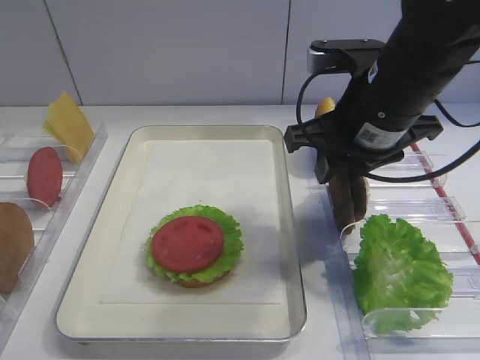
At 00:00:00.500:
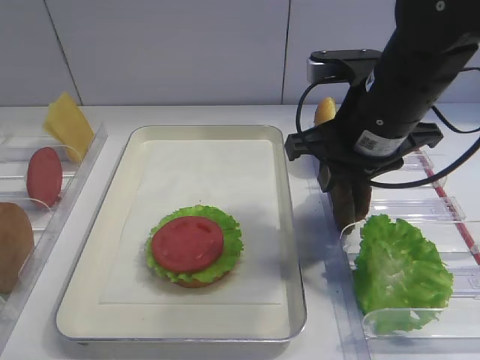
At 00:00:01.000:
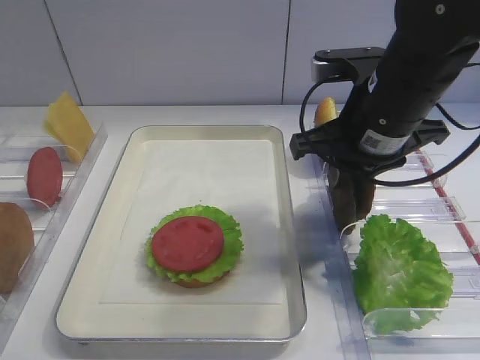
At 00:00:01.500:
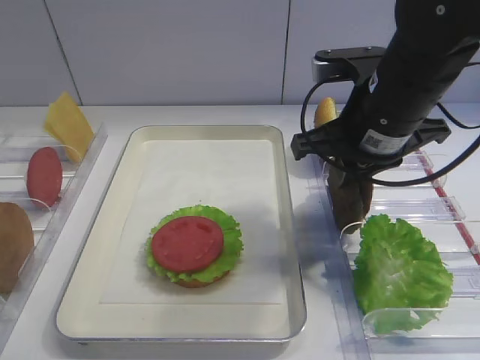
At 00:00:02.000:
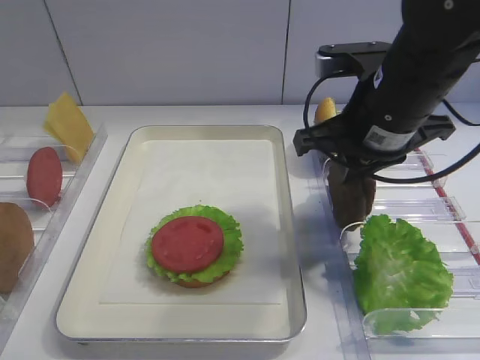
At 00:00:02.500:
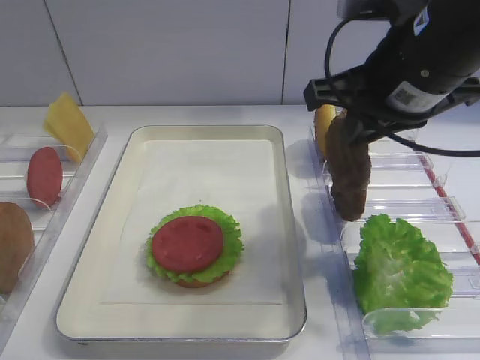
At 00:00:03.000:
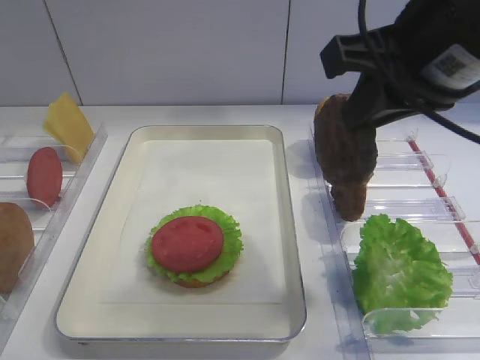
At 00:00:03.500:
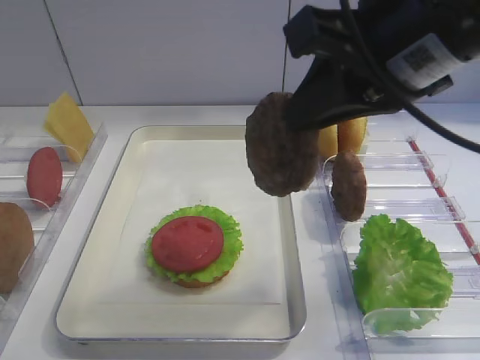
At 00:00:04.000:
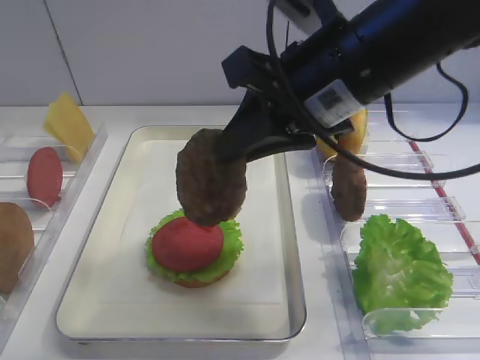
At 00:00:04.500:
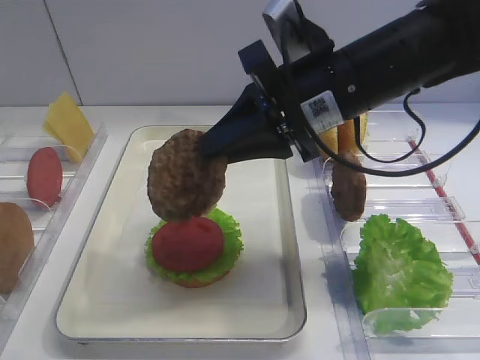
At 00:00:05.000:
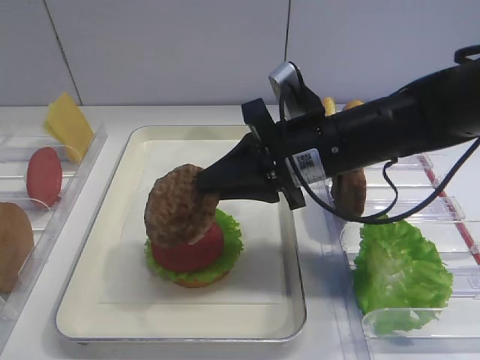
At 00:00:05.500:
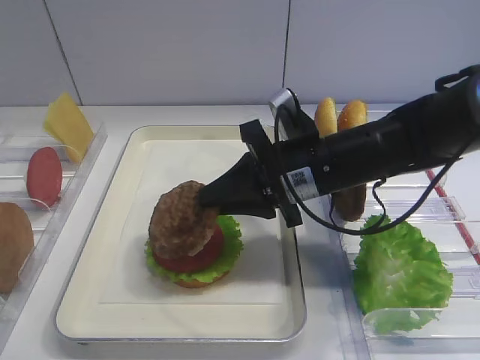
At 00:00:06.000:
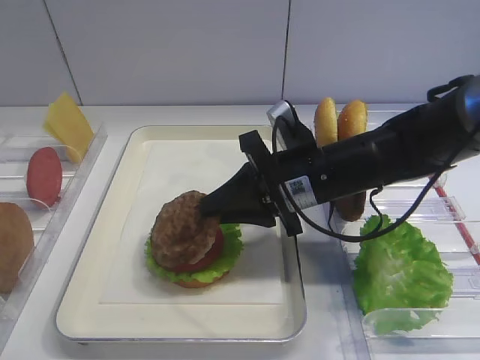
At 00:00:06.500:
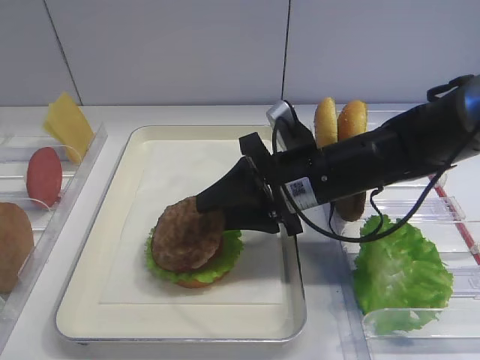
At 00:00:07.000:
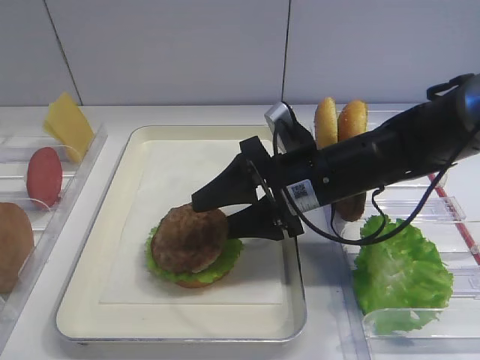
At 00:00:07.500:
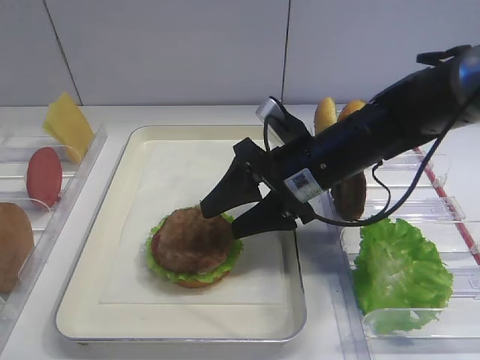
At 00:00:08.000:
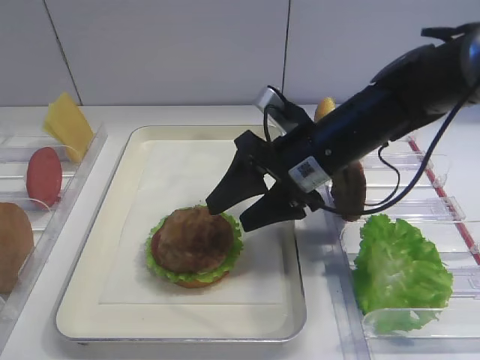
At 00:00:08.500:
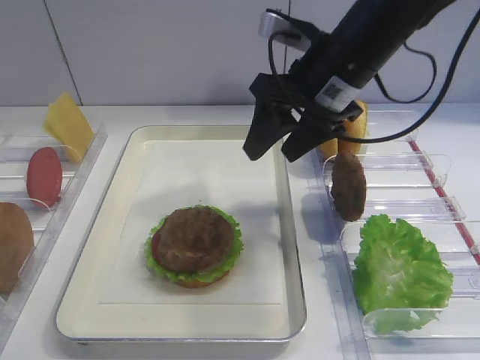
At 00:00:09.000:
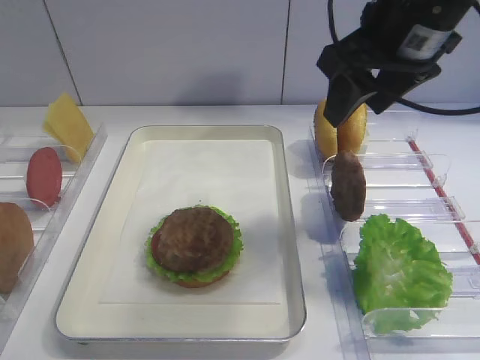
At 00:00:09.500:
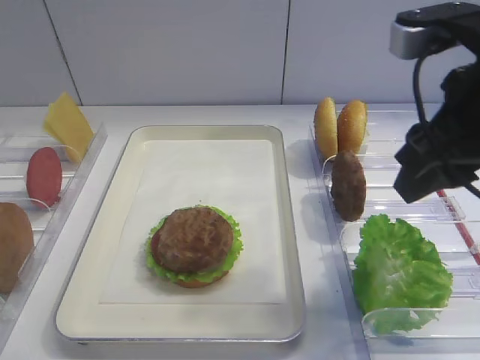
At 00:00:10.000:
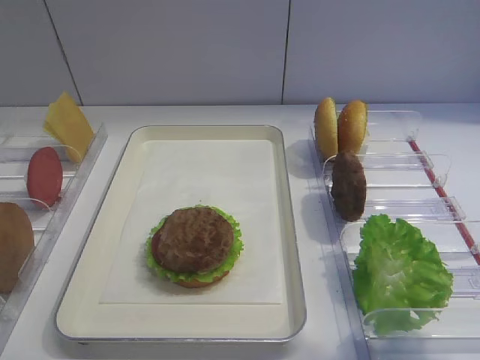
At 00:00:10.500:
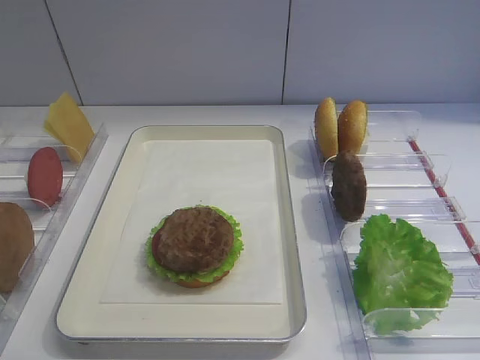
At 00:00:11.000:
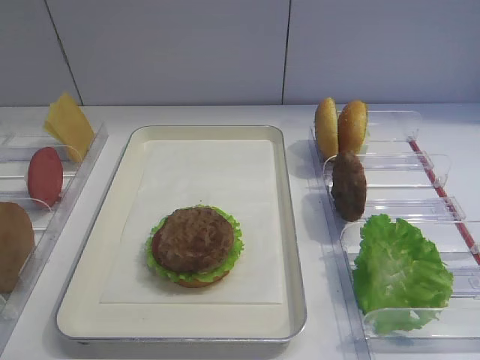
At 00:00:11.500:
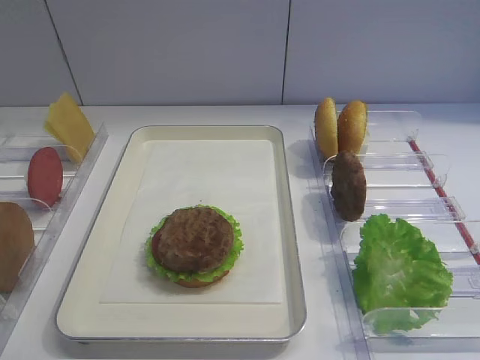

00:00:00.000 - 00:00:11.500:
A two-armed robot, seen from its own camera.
Step, 00:00:00.000 - 00:00:02.500: Pick up the cutlet with the right gripper.
Step, 00:00:03.000 - 00:00:07.500: Place the cutlet on the tomato slice with the right gripper.
00:00:00.000 - 00:00:02.000: The right gripper closes its fingers.
00:00:02.000 - 00:00:04.000: The right gripper goes approximately 5 cm upward.
00:00:04.000 - 00:00:06.000: The right gripper heads downward, covering about 15 cm.
00:00:06.000 - 00:00:07.500: The right gripper opens up.
00:00:07.500 - 00:00:09.500: The right gripper heads upward, to the right and backward, covering approximately 20 cm.
00:00:09.500 - 00:00:11.500: The right gripper shifts about 25 cm backward and to the right.

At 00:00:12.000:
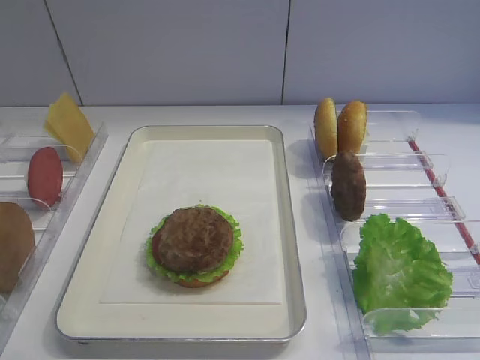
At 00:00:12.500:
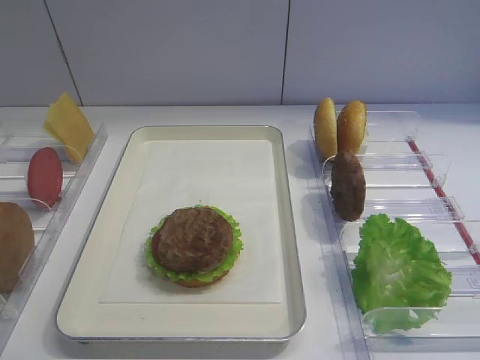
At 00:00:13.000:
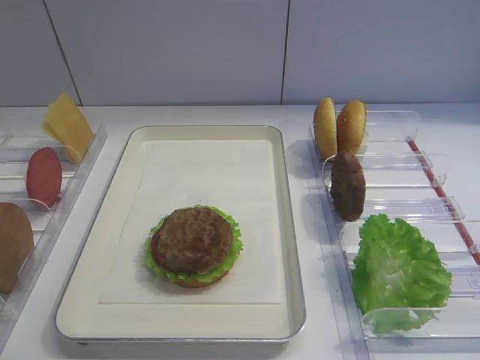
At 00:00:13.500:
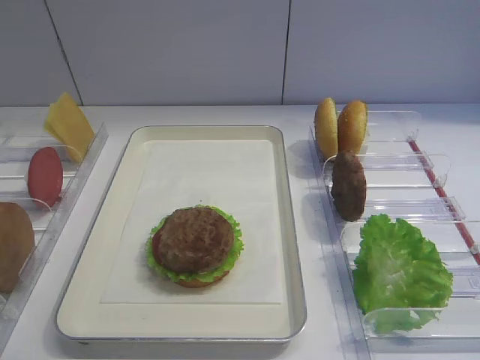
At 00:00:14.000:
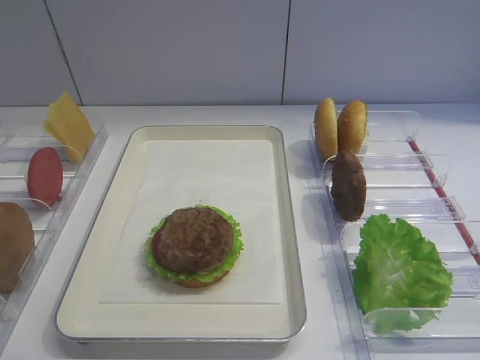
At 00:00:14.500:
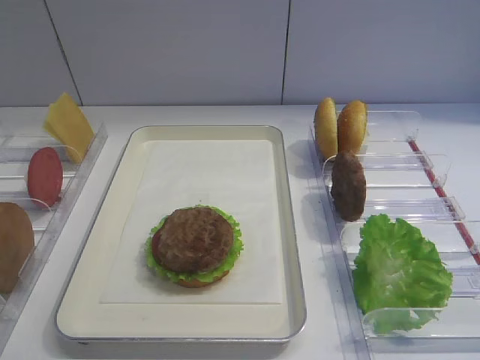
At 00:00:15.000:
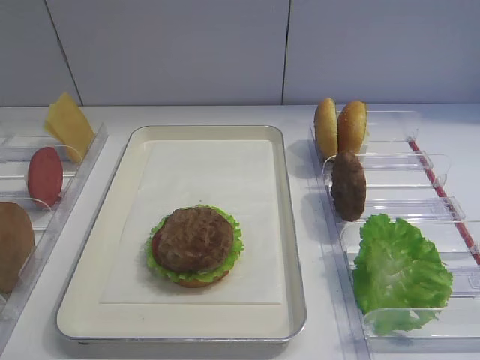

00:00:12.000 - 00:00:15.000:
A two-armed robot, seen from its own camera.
00:00:13.500 - 00:00:15.000: The two grippers keep their place.

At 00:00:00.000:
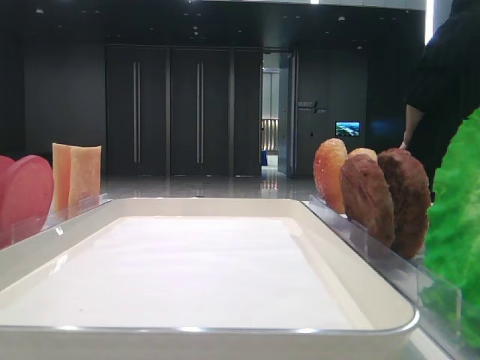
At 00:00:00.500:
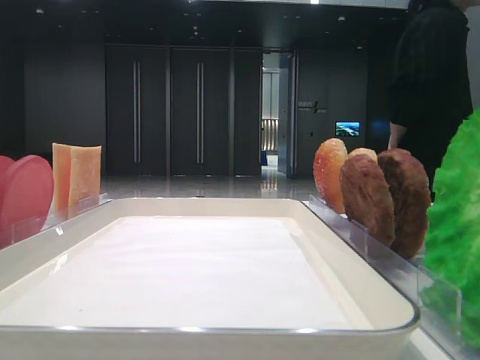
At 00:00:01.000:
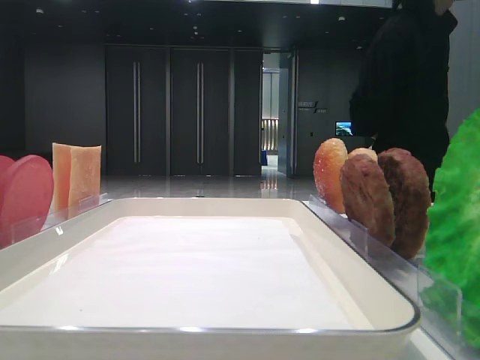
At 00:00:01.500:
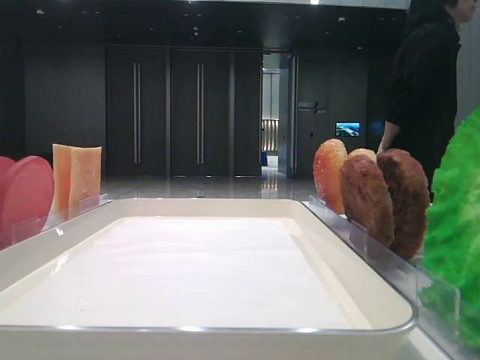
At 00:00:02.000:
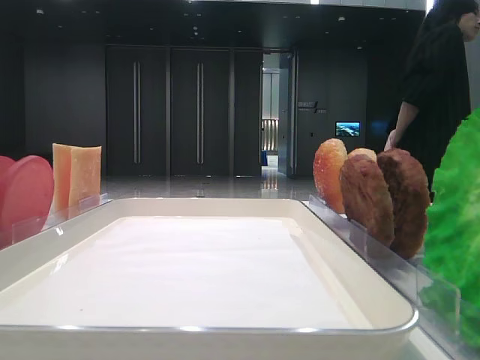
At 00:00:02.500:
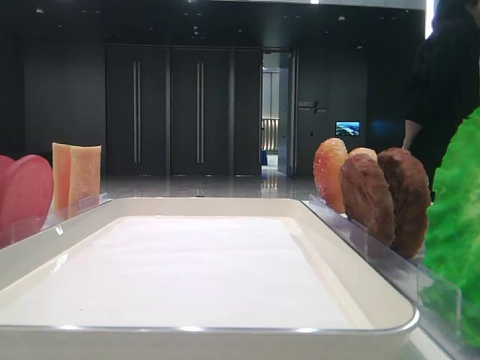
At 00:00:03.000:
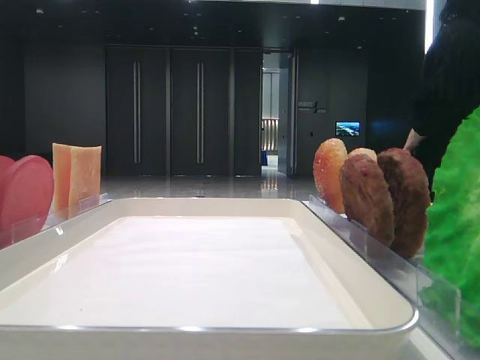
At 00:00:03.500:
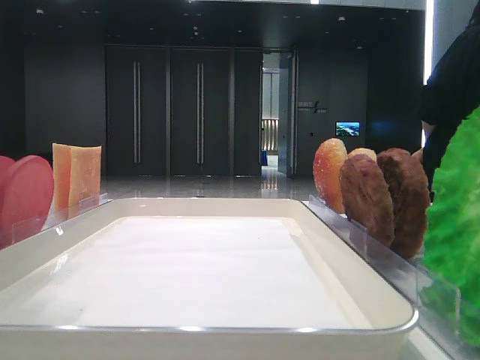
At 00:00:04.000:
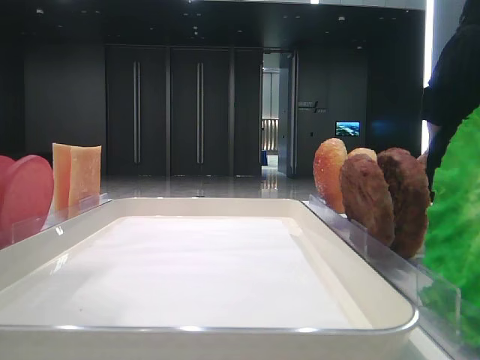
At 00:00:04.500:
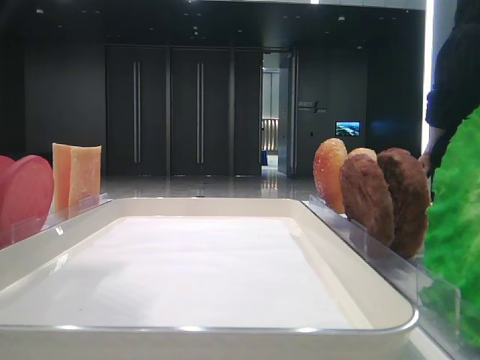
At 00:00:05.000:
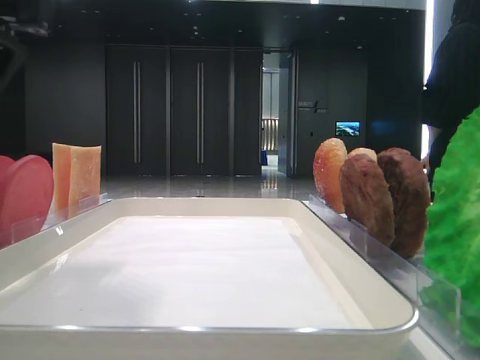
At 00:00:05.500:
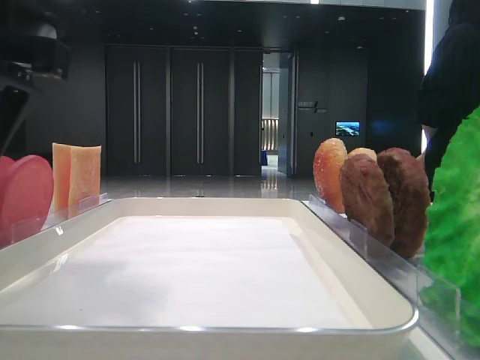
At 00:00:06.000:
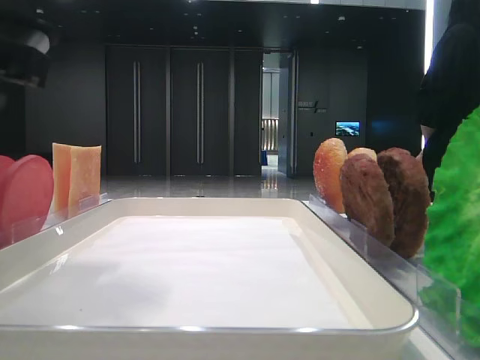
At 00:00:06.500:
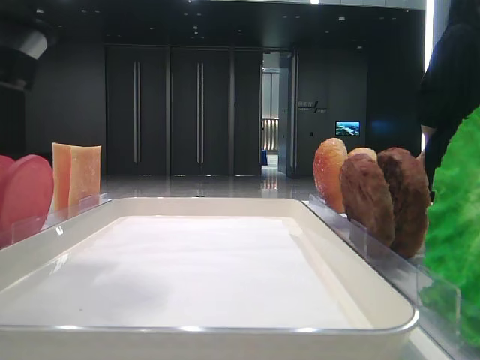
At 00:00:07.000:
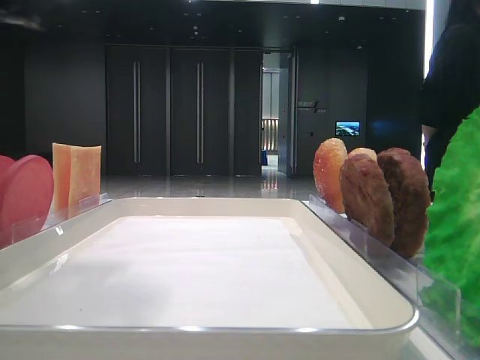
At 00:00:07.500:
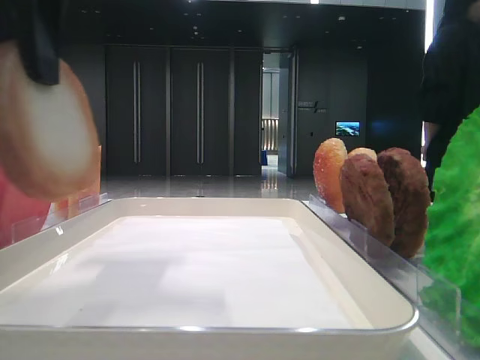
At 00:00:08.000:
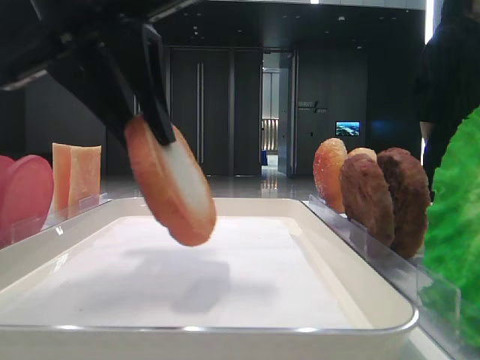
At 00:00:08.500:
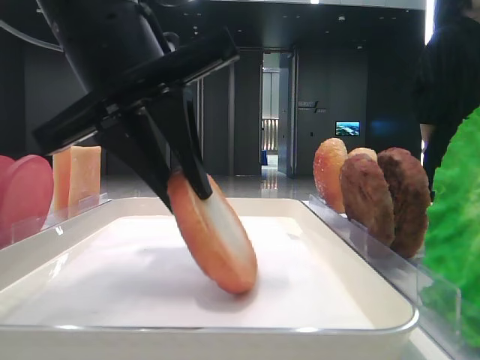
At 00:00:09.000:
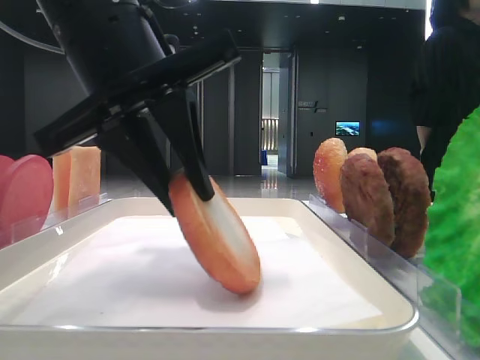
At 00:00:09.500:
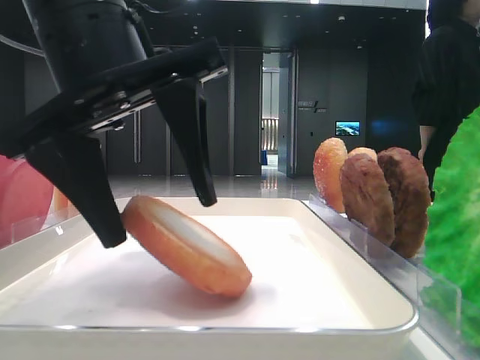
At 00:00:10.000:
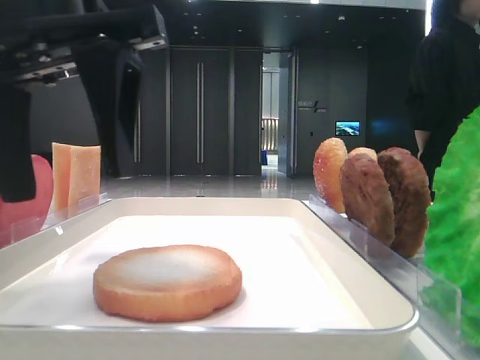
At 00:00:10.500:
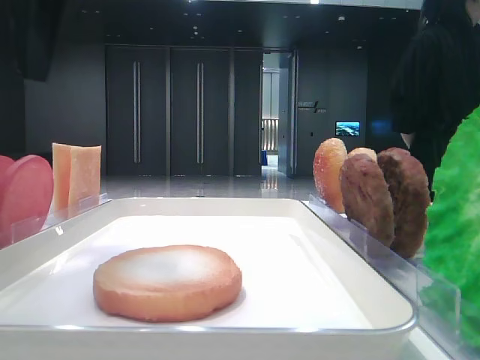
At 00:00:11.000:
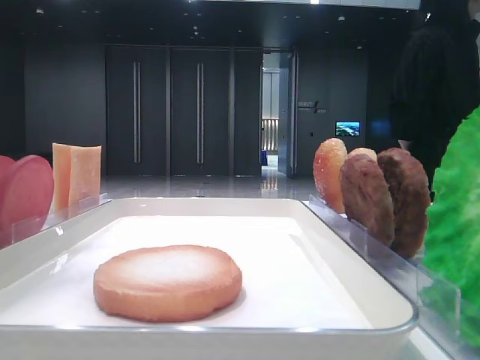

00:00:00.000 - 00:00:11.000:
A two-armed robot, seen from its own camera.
Step, 00:00:00.000 - 00:00:06.500: Pick up the bottom bread slice with the left hand.
Step, 00:00:07.000 - 00:00:09.500: Place the bottom bread slice on the tray with the left hand.
00:00:02.000 - 00:00:03.500: The left gripper travels to the right by approximately 10 cm.
00:00:03.500 - 00:00:05.500: The left gripper goes some 10 cm downward and to the right.
00:00:05.500 - 00:00:07.500: The left gripper is displaced upward by about 5 cm, and closes its fingers.
00:00:07.500 - 00:00:09.000: The left gripper goes roughly 10 cm downward.
00:00:09.000 - 00:00:11.000: The left gripper is displaced to the left and upward by about 20 cm, and opens.
